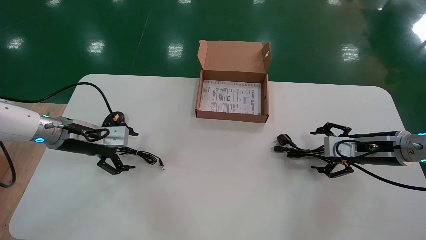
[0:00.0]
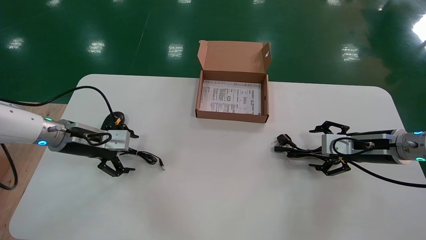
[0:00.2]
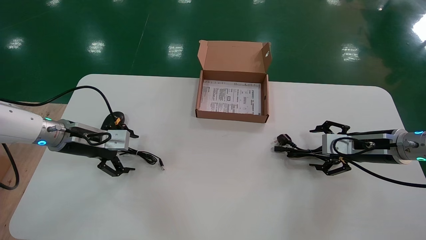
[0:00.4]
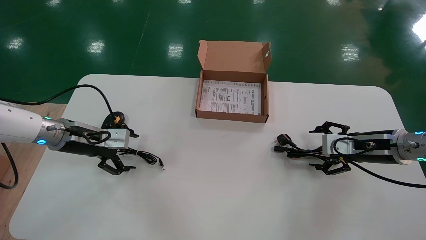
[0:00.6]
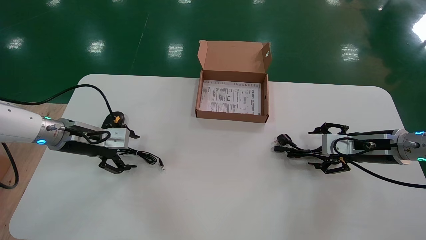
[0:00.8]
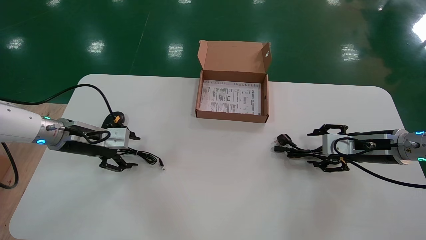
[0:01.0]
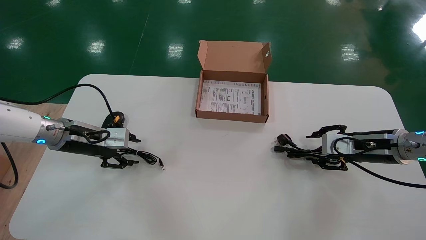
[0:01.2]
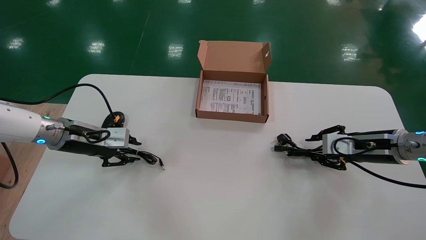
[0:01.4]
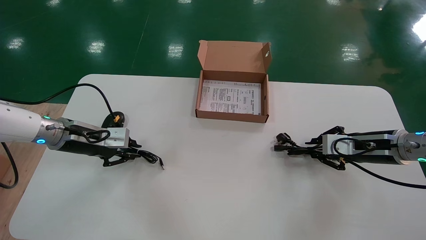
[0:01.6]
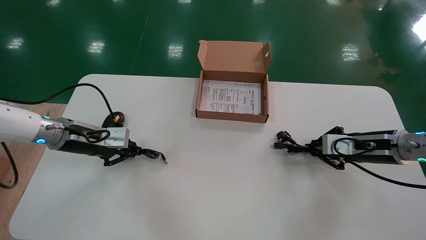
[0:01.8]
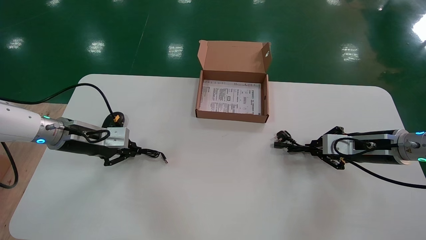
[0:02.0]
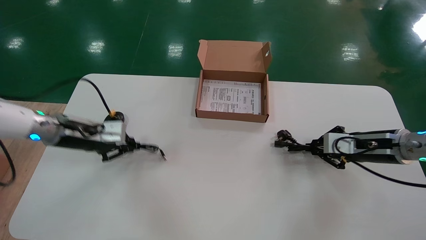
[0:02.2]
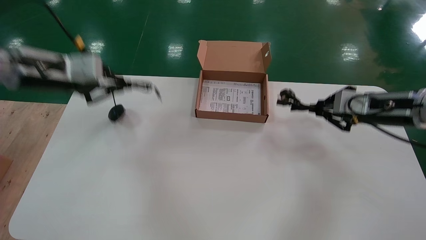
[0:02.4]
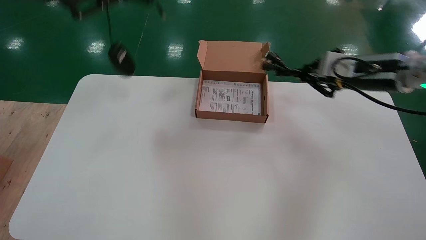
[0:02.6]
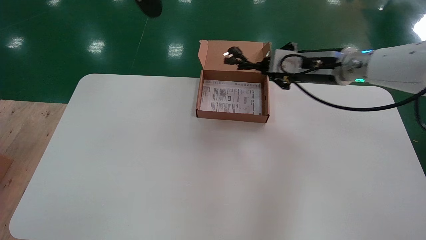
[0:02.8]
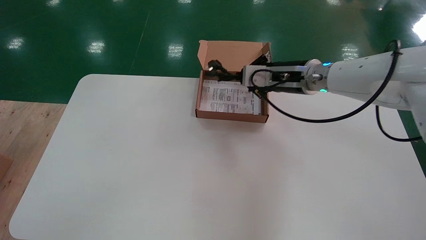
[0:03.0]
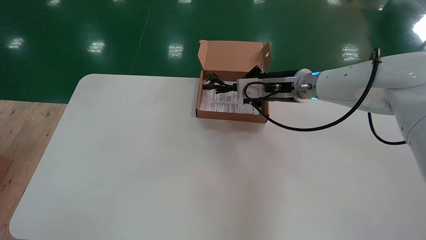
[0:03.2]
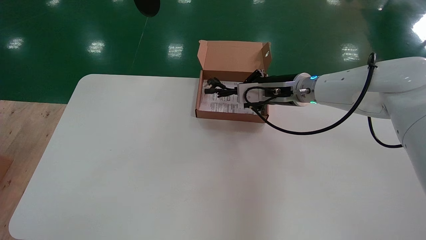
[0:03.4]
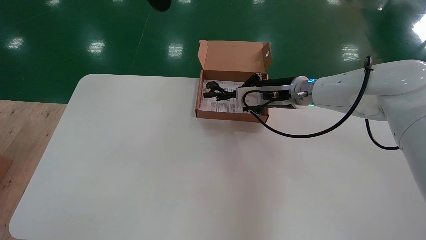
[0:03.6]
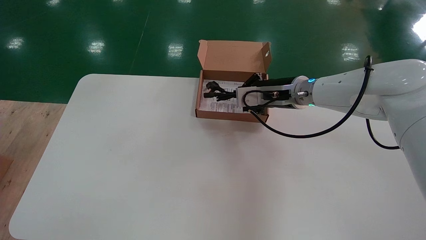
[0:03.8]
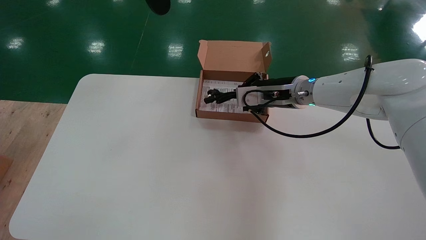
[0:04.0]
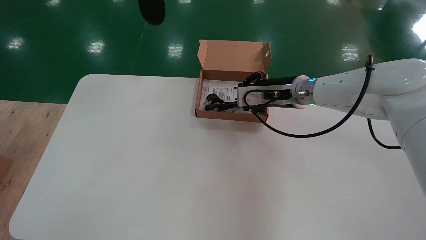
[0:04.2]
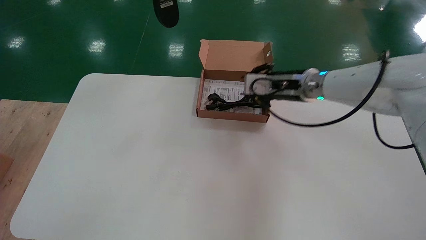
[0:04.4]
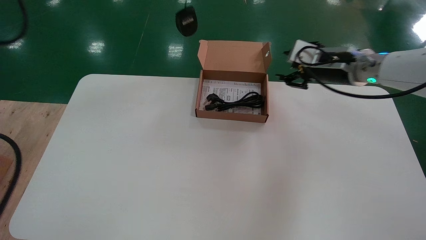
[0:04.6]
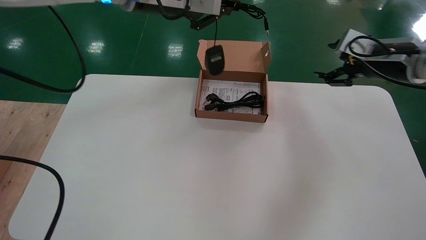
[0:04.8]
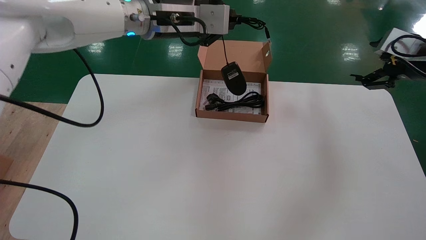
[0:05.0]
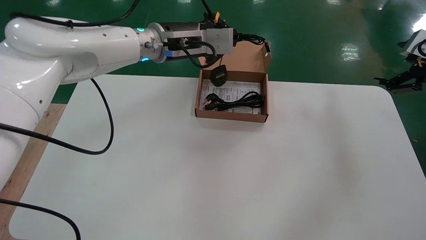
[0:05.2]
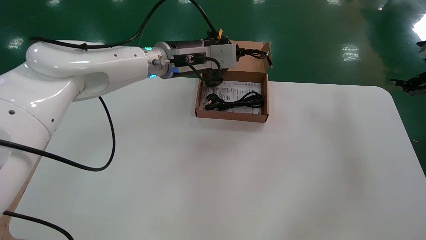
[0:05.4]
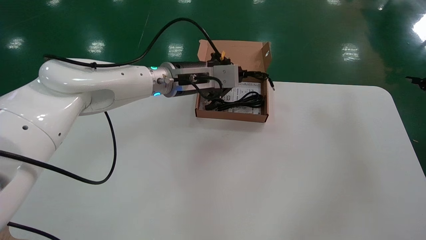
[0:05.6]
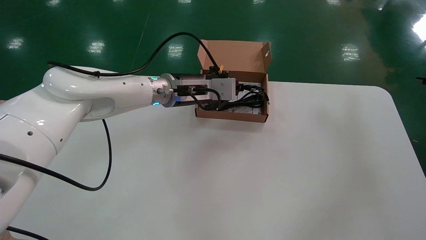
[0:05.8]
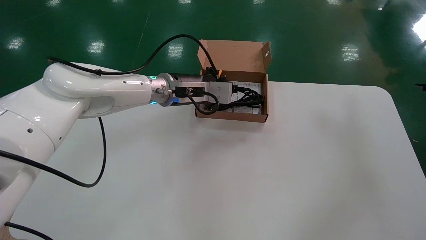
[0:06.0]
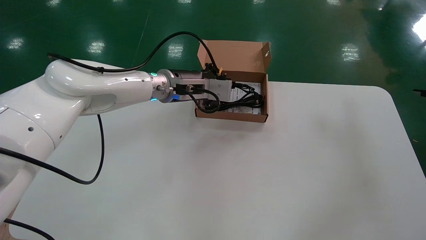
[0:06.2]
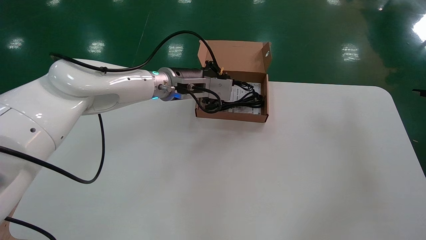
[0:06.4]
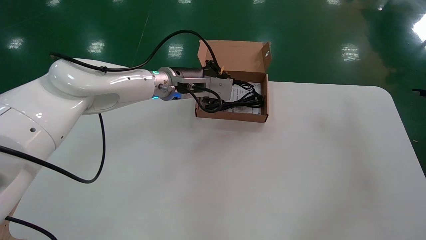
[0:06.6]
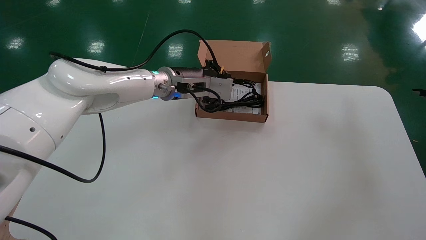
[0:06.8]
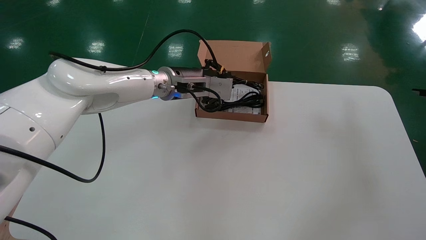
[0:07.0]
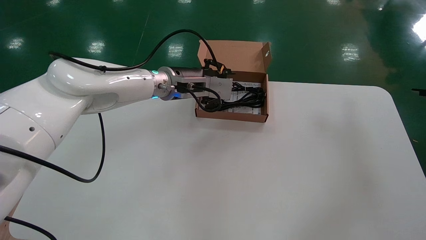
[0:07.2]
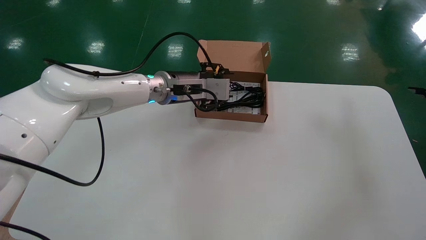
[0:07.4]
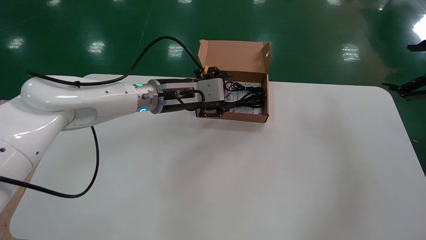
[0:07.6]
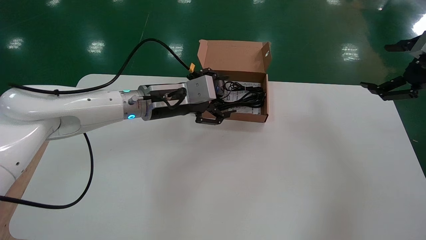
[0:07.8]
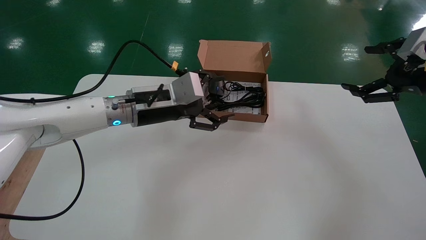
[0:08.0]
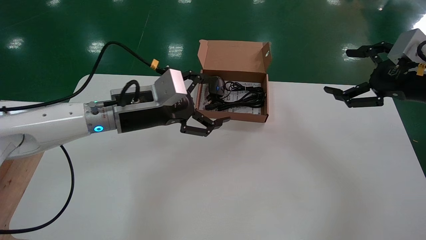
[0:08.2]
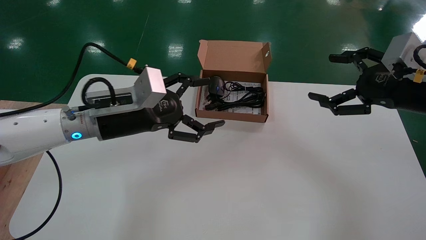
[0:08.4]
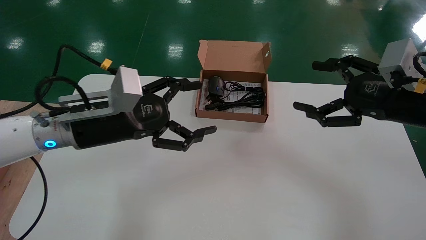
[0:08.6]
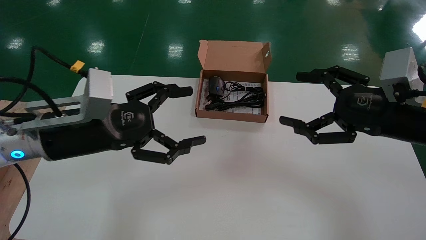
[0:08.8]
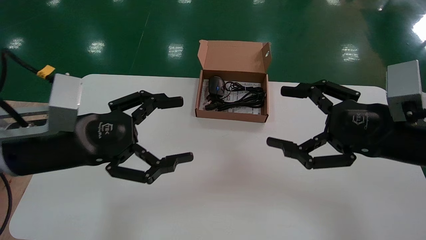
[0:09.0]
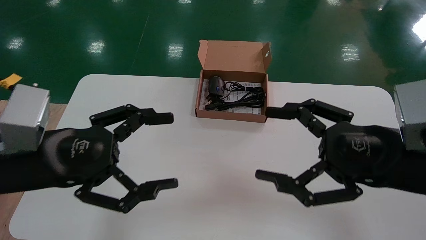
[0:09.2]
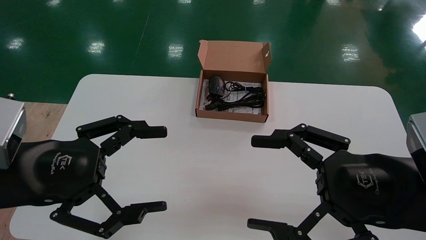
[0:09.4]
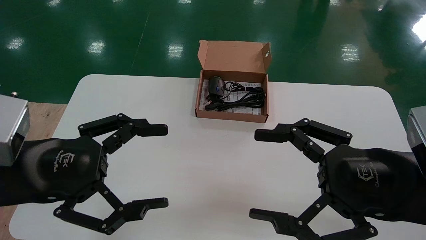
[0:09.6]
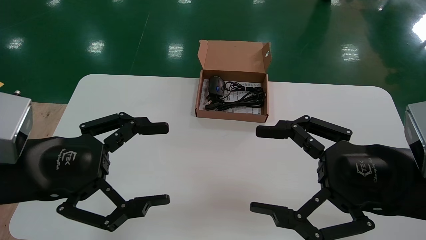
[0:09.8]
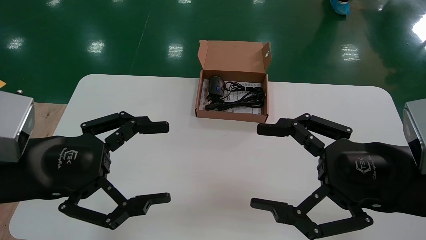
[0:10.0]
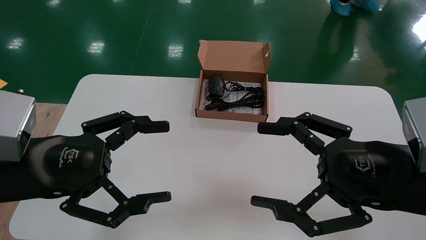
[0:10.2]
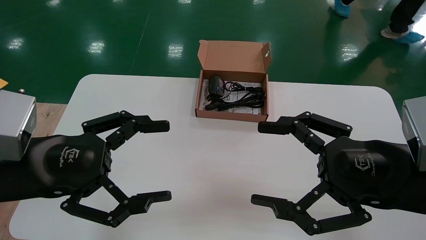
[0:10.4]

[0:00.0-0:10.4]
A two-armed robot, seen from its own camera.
Step, 0:00.0 to 0:02.0: Simultaneously pick up the mouse and power cord from the accessory packaging area.
Step, 0:02.2 to 0:07.4: Place the mouse and power cord into the box.
0:00.0 to 0:01.4: The left gripper closes its fingers. The right gripper closes its fingers.
0:01.4 to 0:03.0: The right gripper shifts about 20 cm to the left and upward, and closes up. Meanwhile the left gripper shifts roughly 40 cm upward, and closes its fingers.
0:03.0 to 0:04.4: The left gripper heads to the right, covering about 5 cm.
0:04.4 to 0:06.0: The right gripper moves to the right and backward, approximately 35 cm, and opens, while the left gripper moves downward and forward, roughly 30 cm.
0:06.0 to 0:07.4: The left gripper opens its fingers.
0:07.4 to 0:09.0: The right gripper is displaced to the left and backward by approximately 25 cm; the left gripper travels backward and to the left by roughly 25 cm, and opens up.
0:09.0 to 0:10.4: The right gripper travels backward by approximately 5 cm; the left gripper shifts by some 5 cm.

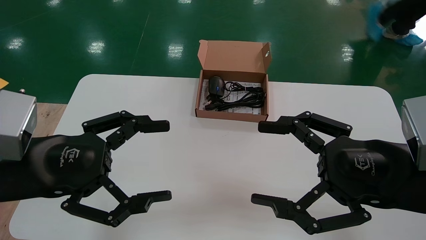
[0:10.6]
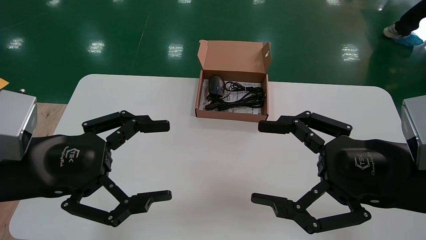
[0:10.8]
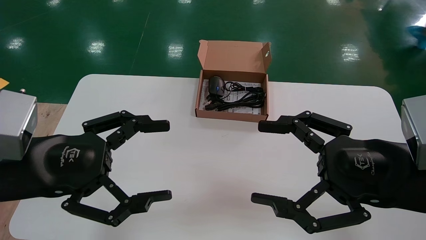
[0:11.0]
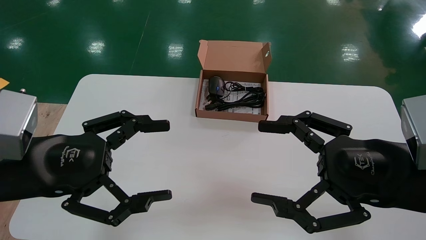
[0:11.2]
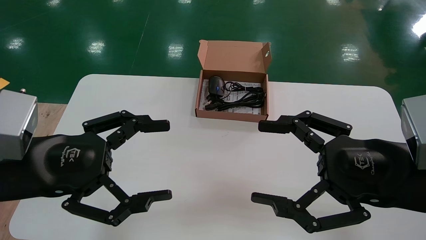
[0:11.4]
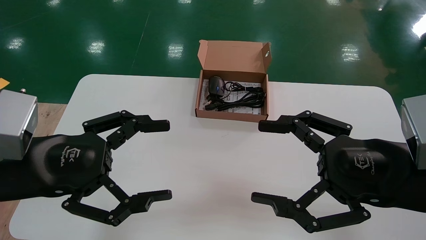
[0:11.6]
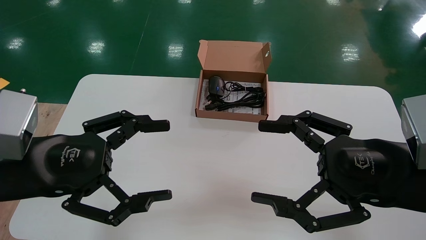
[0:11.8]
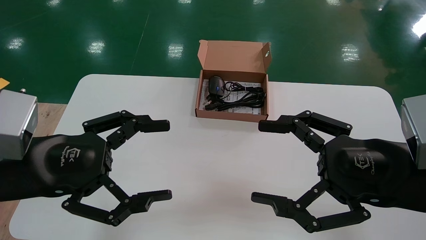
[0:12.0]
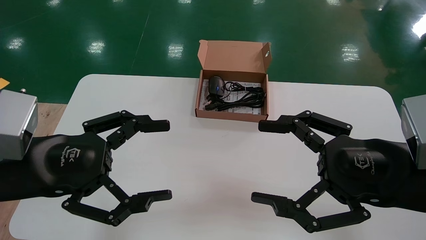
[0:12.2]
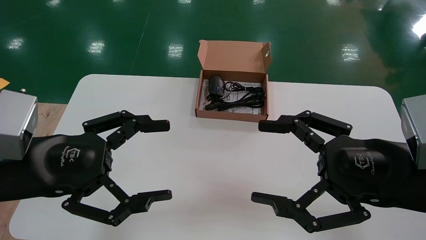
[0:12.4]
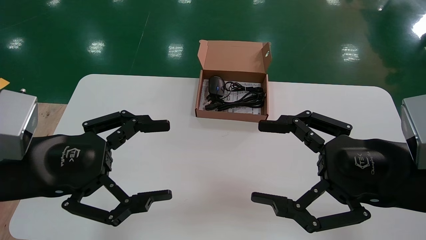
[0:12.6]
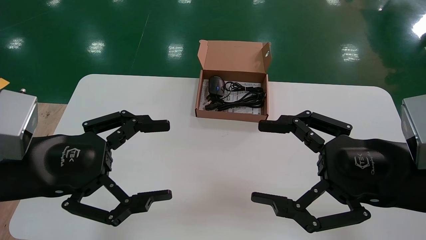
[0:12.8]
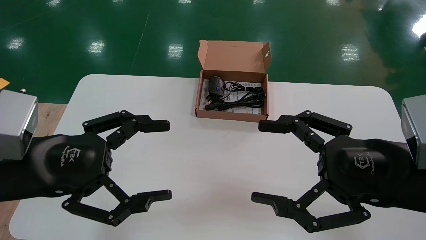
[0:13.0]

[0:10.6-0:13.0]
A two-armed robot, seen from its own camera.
0:10.6 to 0:13.0: The two grippers keep their place.

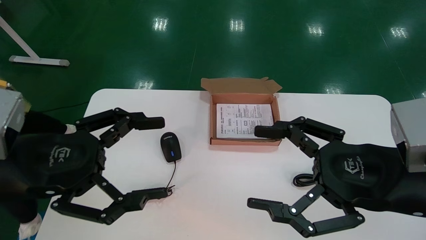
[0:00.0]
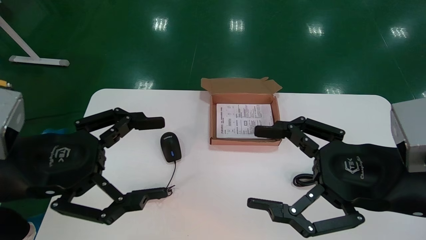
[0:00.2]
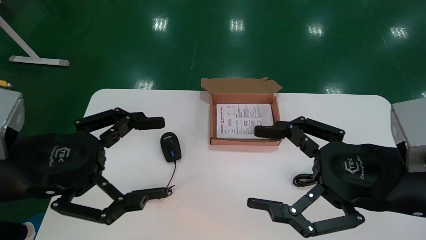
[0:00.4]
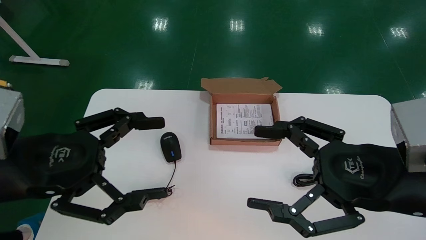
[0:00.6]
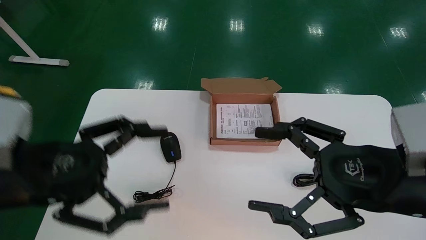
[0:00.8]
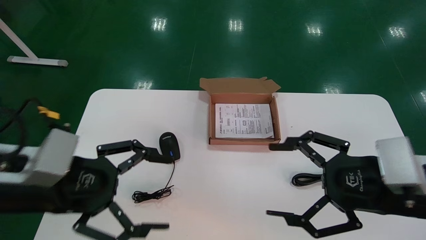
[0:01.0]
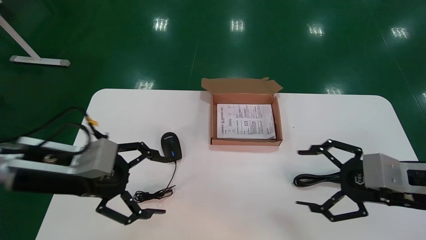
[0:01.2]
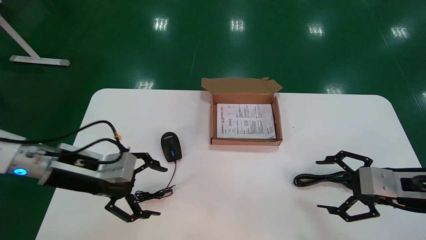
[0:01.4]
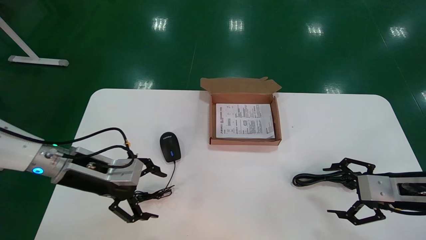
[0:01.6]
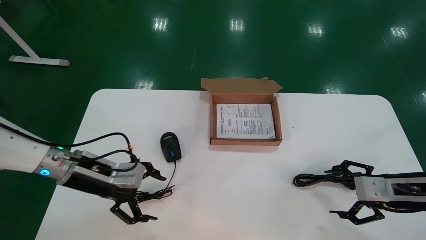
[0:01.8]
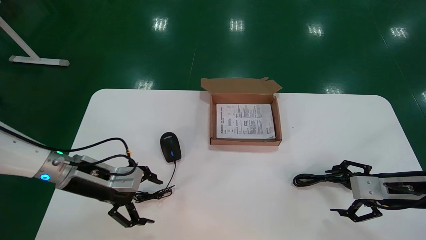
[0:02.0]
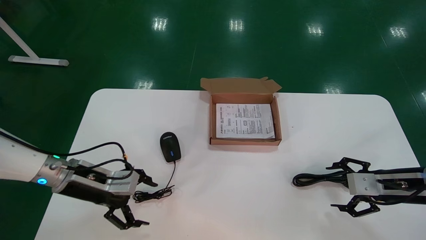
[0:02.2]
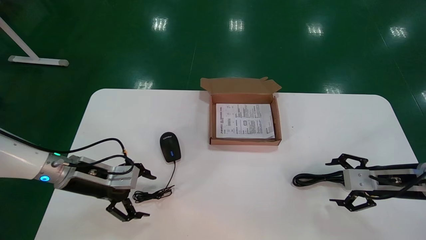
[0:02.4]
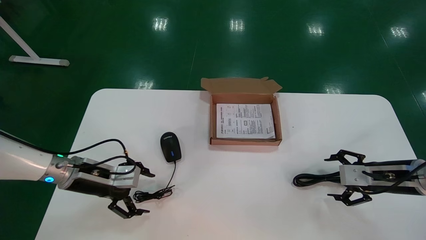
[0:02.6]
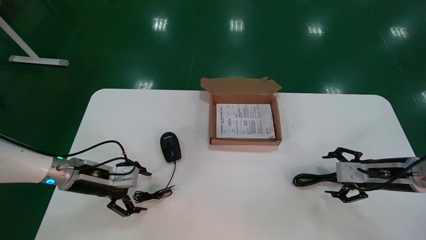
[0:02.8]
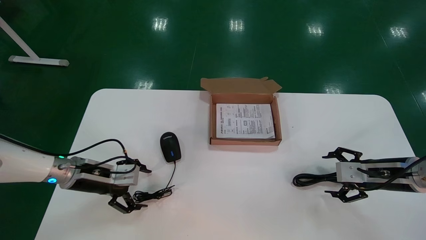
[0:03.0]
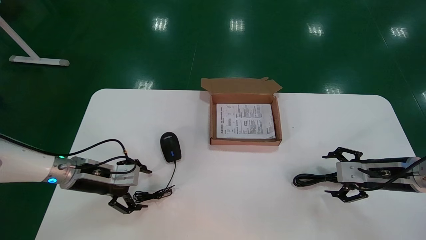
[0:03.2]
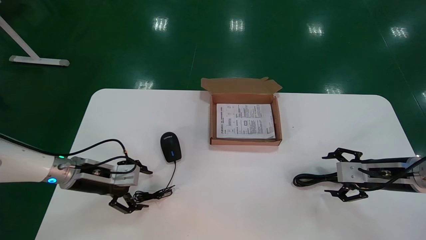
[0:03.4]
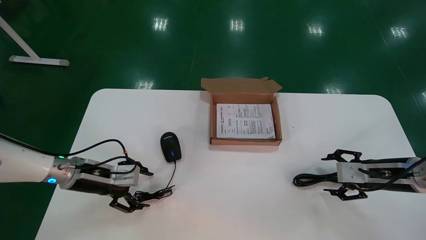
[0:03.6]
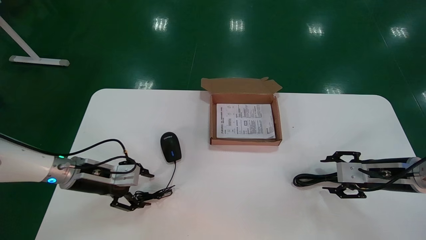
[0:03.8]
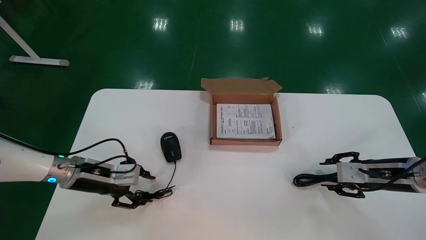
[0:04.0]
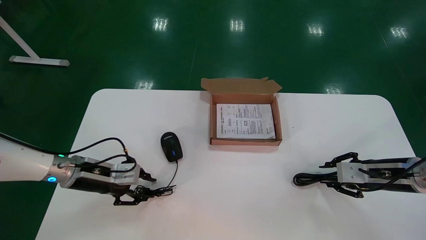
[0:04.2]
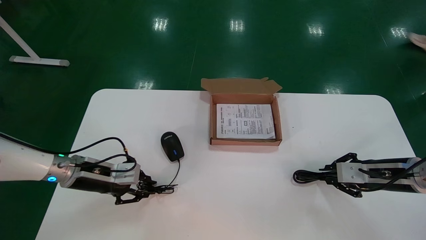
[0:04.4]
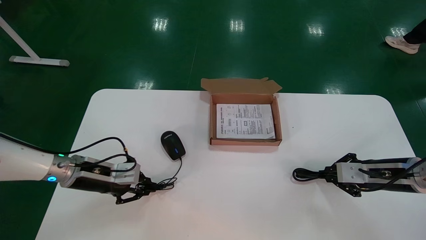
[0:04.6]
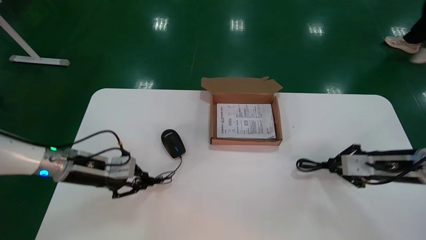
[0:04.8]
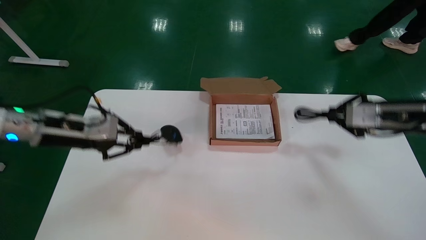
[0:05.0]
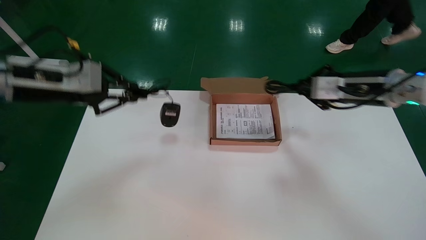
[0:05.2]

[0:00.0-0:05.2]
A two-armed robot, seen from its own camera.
Step, 0:01.0 to 0:04.8: Simultaneously pick up the mouse and power cord from the accessory packaging area.
0:00.0 to 0:01.8: The right gripper is displaced to the right, forward and downward by some 20 cm. The left gripper shifts approximately 15 cm forward and downward.
0:01.8 to 0:03.4: The left gripper travels downward and forward by approximately 10 cm. Meanwhile the right gripper travels forward by about 5 cm.
0:03.4 to 0:05.2: The left gripper heads upward, covering some 30 cm, and closes. Meanwhile the right gripper is displaced upward, to the left and forward by about 25 cm, and closes up.
